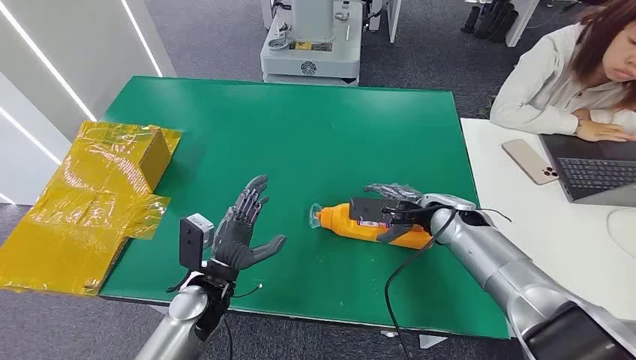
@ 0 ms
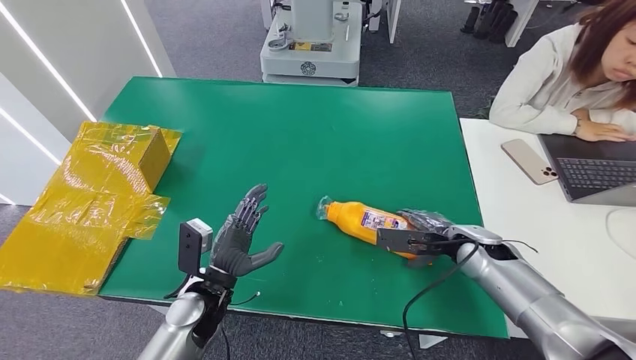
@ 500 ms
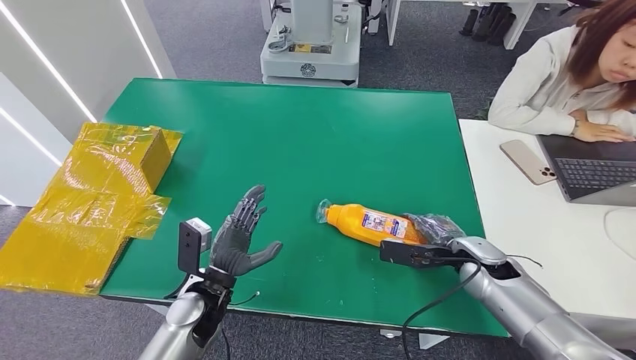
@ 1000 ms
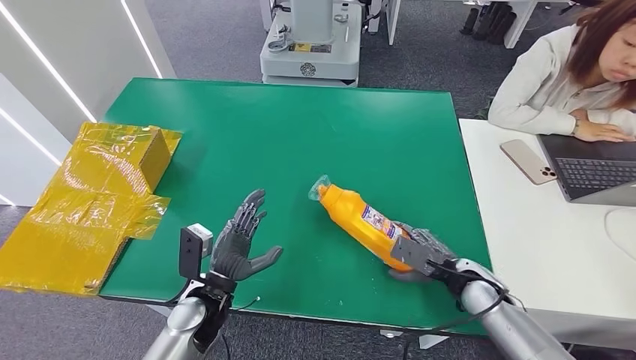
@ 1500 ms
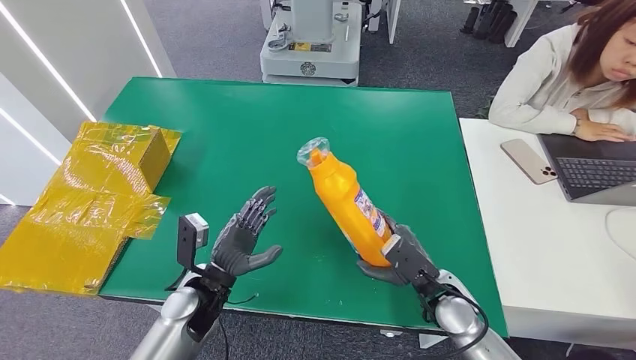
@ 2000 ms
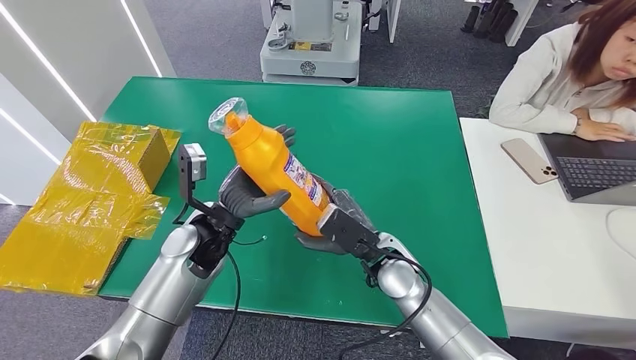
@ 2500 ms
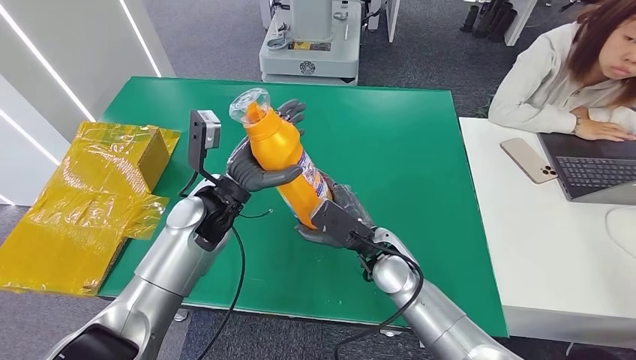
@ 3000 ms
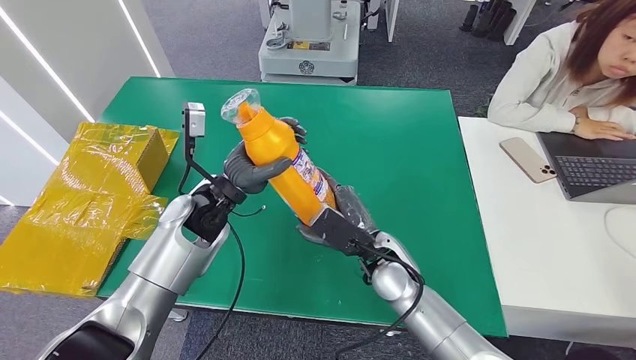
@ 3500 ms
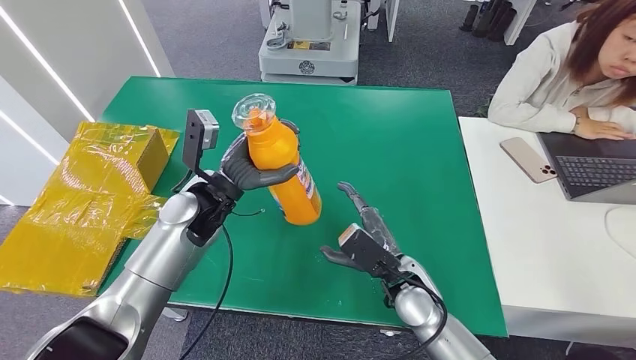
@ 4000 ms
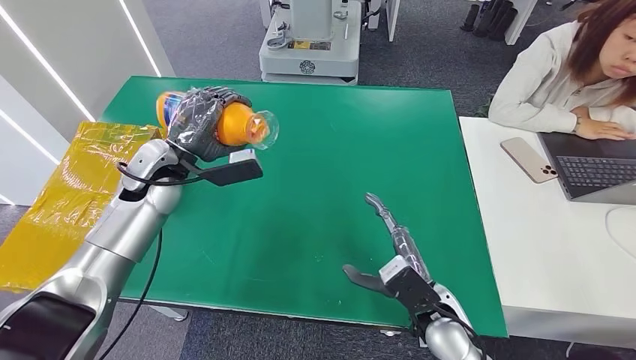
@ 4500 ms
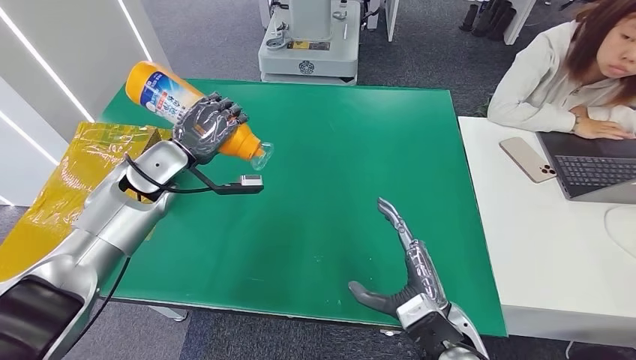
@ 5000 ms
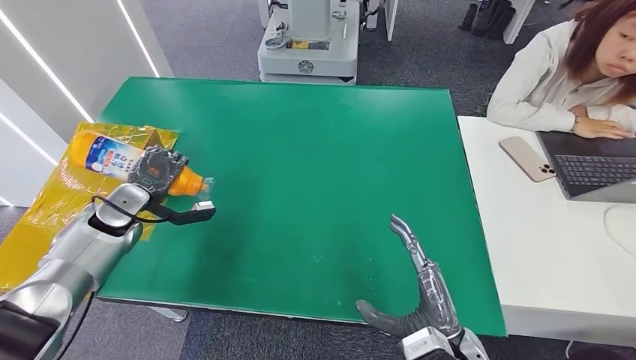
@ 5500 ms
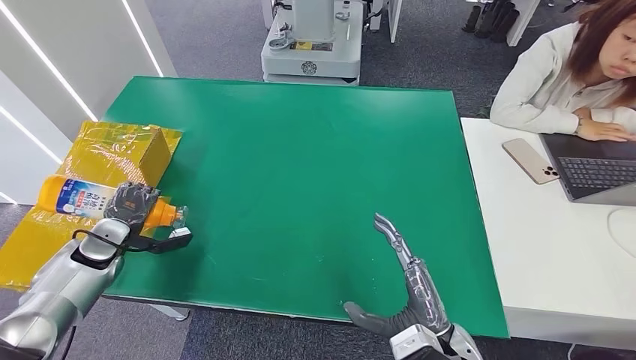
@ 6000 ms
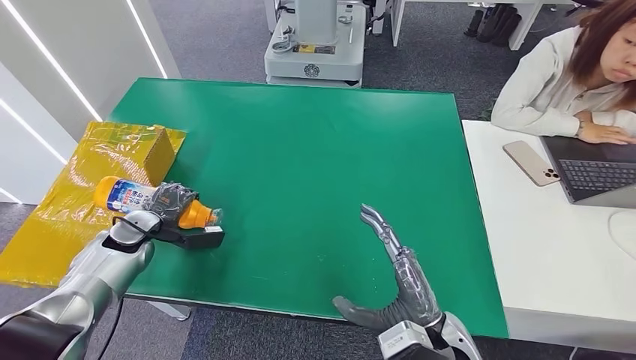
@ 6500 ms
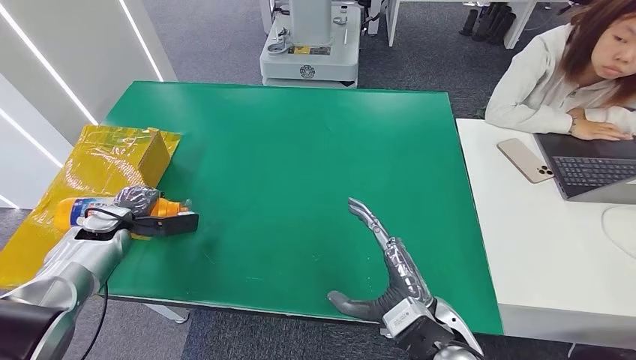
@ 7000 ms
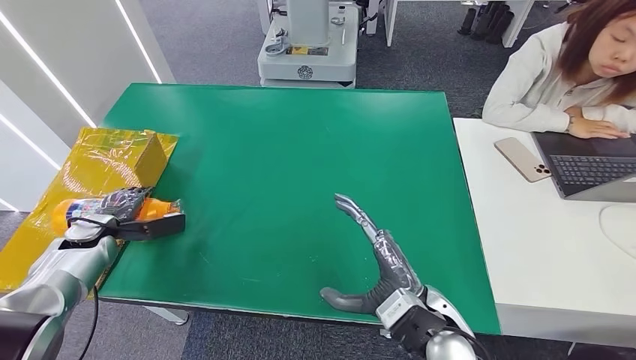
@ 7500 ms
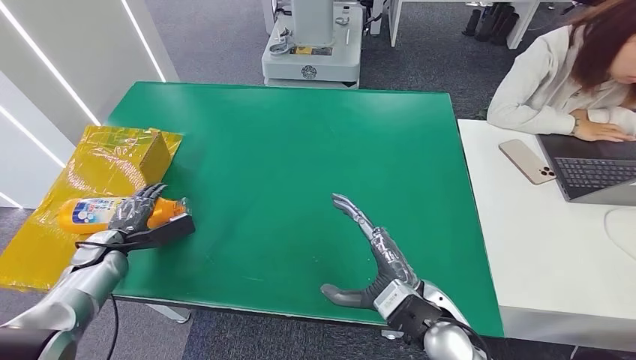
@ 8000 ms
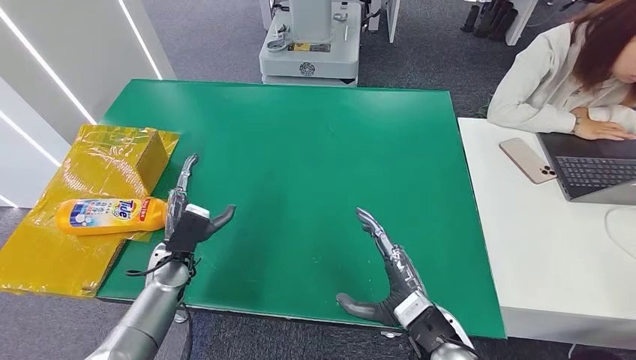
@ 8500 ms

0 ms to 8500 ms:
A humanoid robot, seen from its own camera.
Step, 0 ms to 3000 ms: Pick up the bottle from the table.
Step, 4000 ms to 8500 ms: Turn the bottle to the front side.

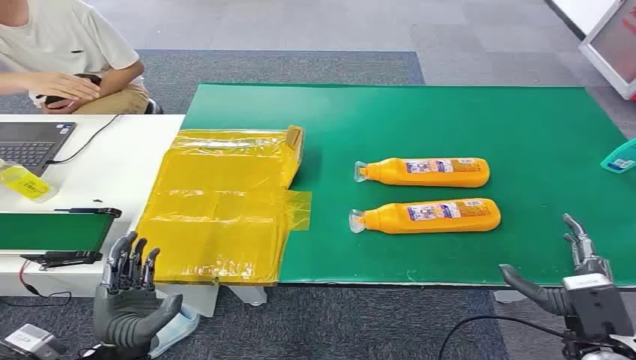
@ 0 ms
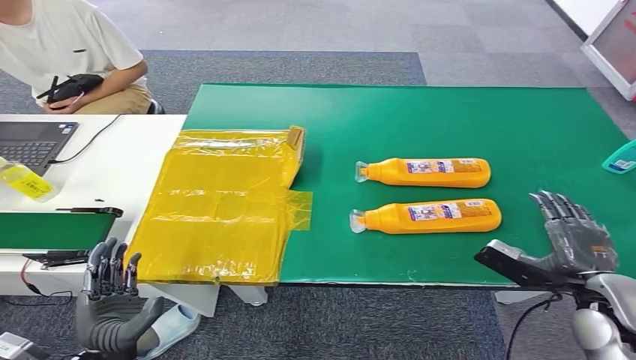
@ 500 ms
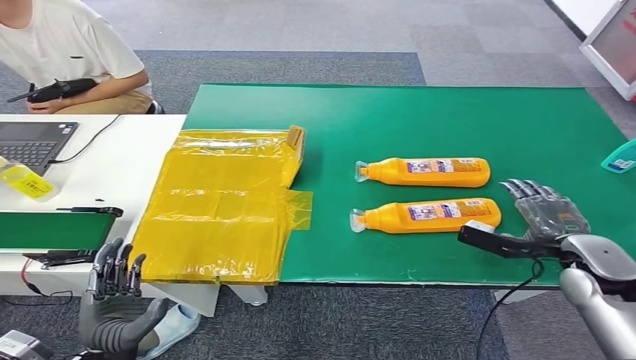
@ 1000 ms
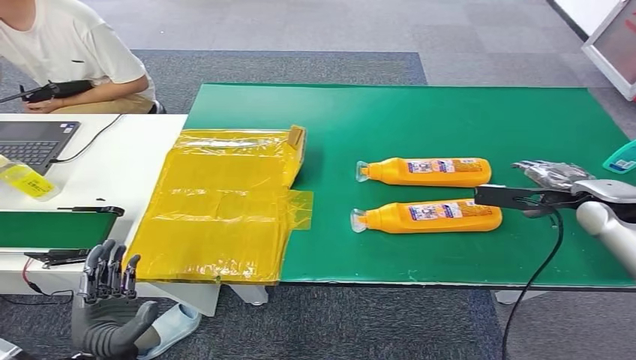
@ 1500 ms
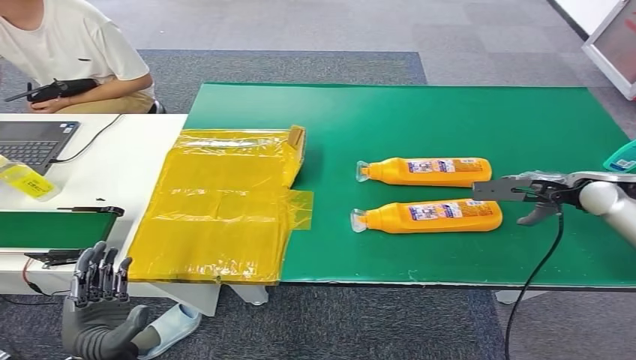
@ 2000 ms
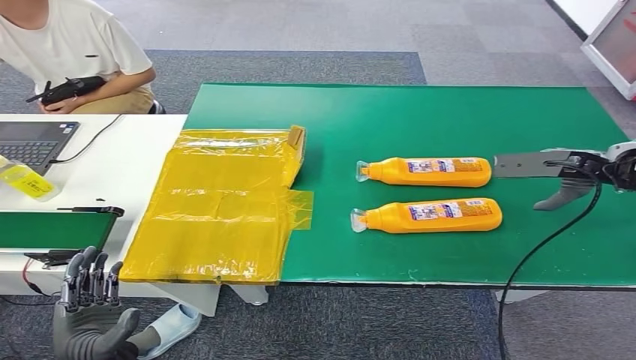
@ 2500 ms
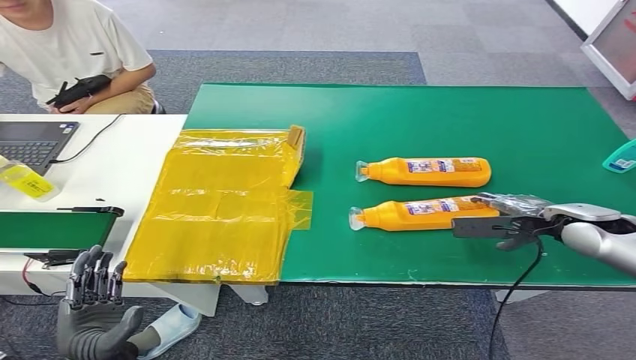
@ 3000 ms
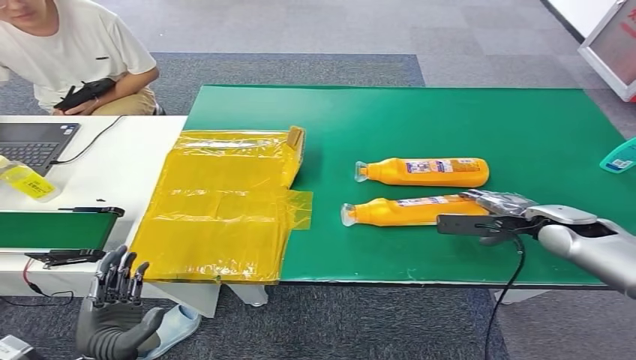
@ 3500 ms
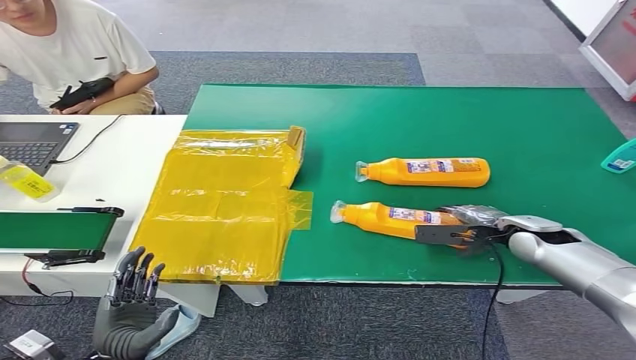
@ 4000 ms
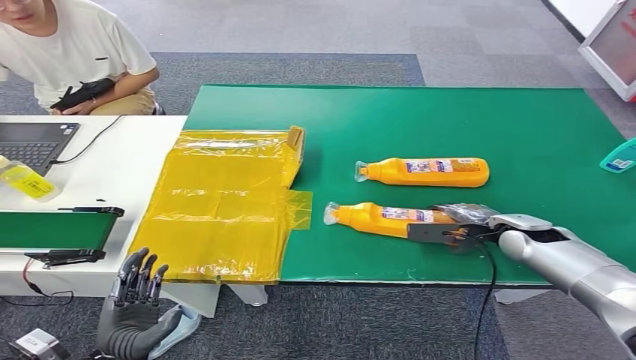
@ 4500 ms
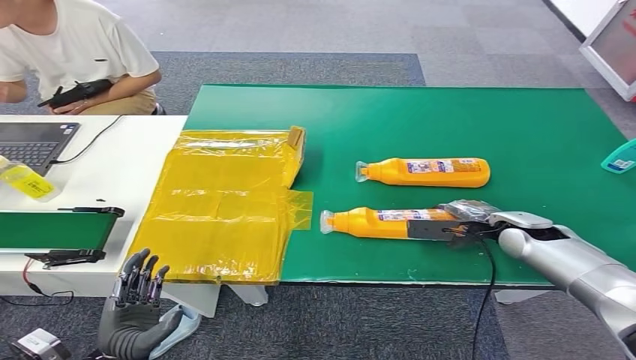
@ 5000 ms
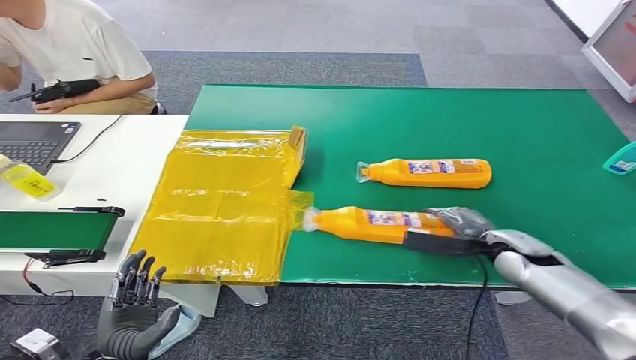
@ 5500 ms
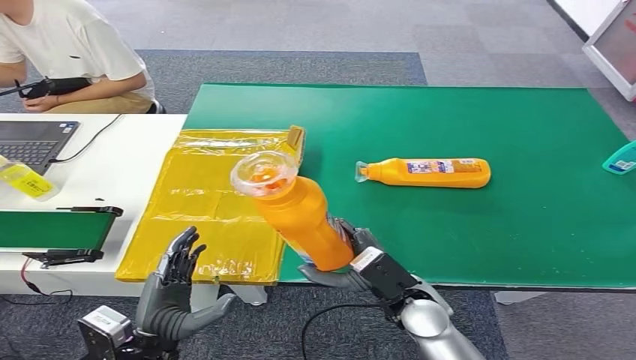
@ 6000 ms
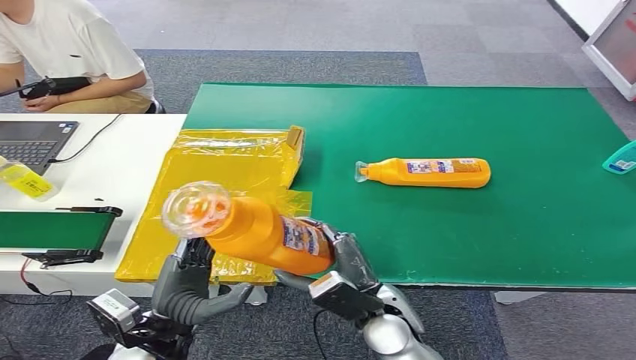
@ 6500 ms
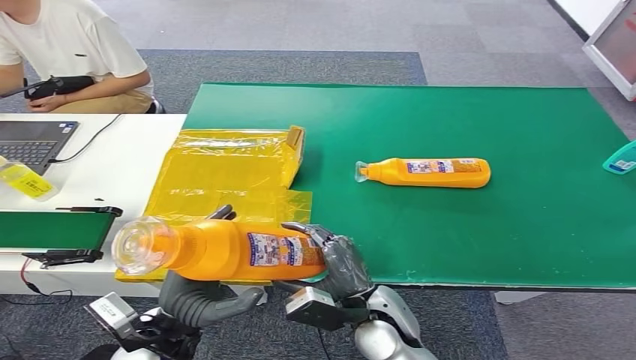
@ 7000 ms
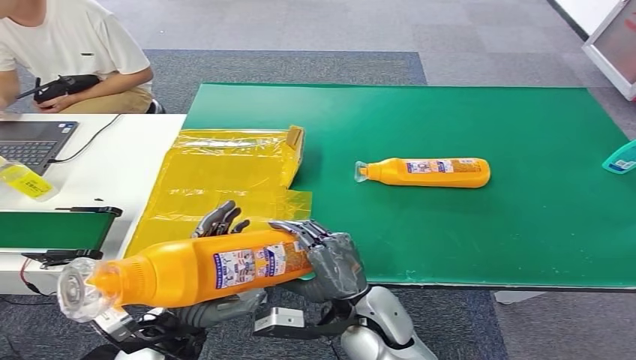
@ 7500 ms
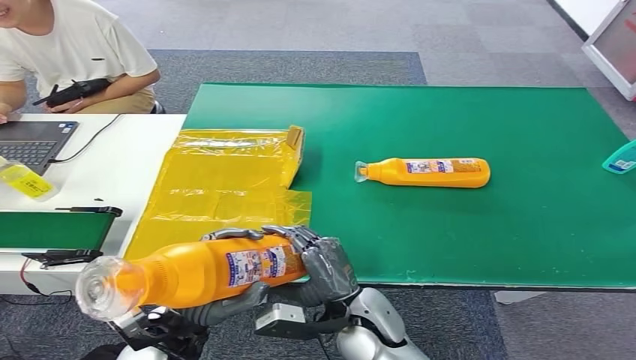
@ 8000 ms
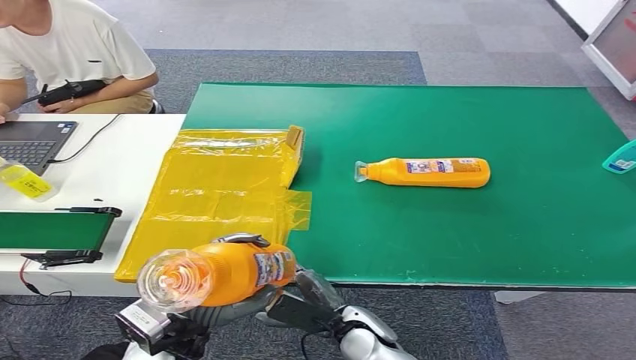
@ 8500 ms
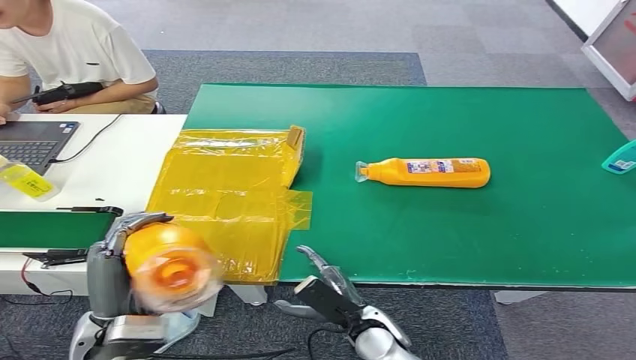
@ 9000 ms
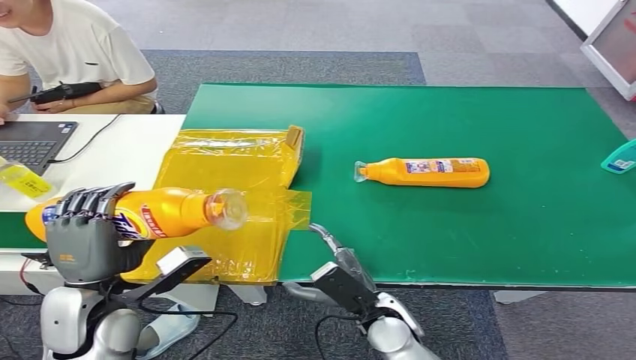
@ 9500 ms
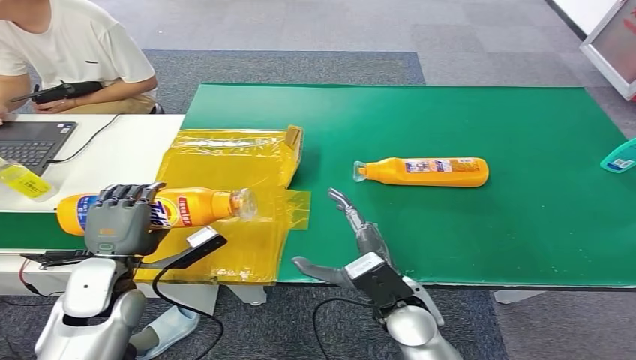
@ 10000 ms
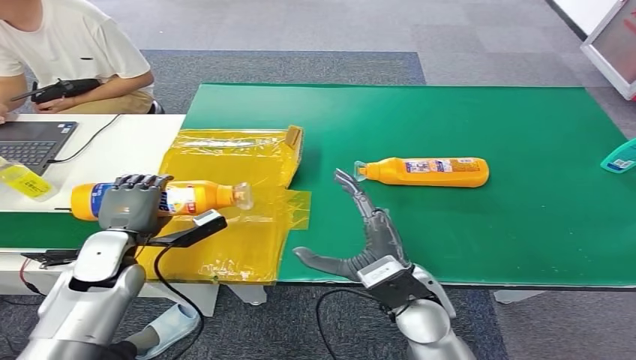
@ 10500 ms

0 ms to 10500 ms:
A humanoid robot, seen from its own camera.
Step, 0 ms to 7000 ms: Pick up the bottle from the table.
2000 ms to 4000 ms: The right hand goes about 15 cm downward and to the left.
6500 ms to 8500 ms: The right hand heads downward, covering about 10 cm.
8500 ms to 10500 ms: The right hand heads upward and to the right, covering roughly 15 cm. Meanwhile the left hand is displaced forward and to the left by roughly 20 cm.

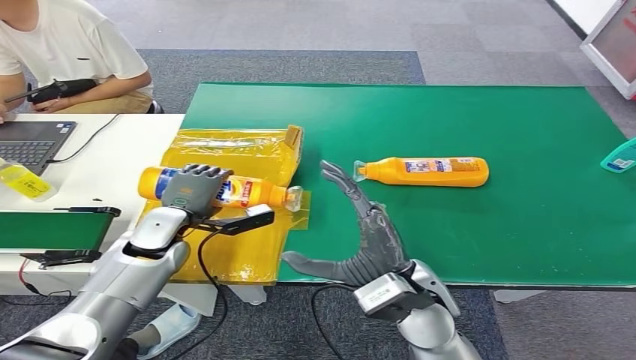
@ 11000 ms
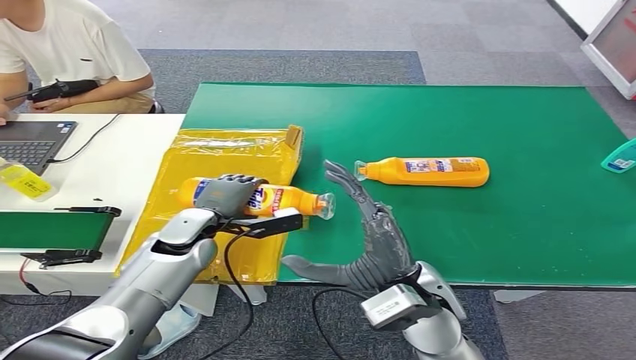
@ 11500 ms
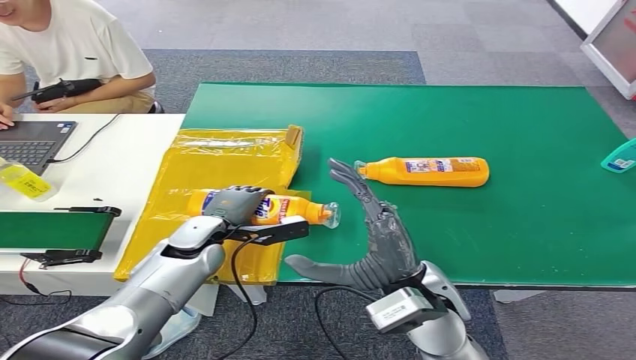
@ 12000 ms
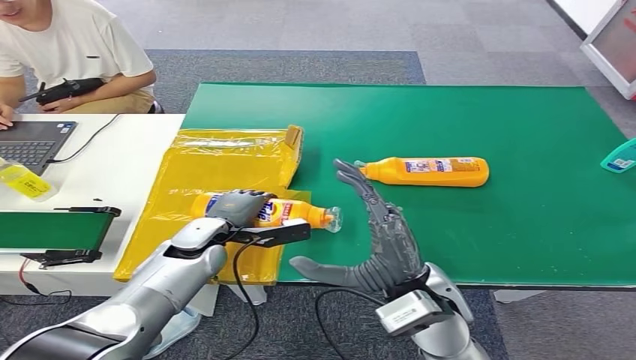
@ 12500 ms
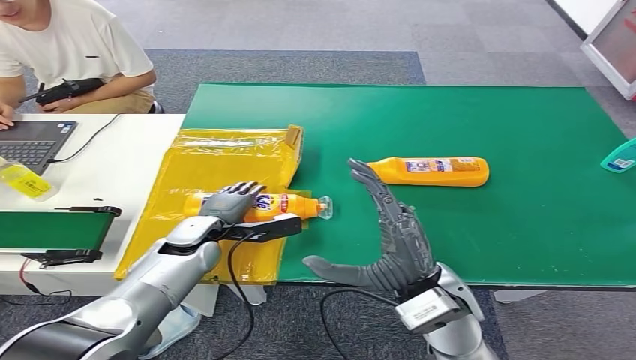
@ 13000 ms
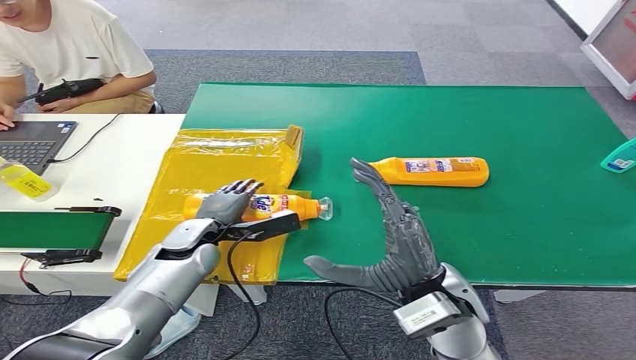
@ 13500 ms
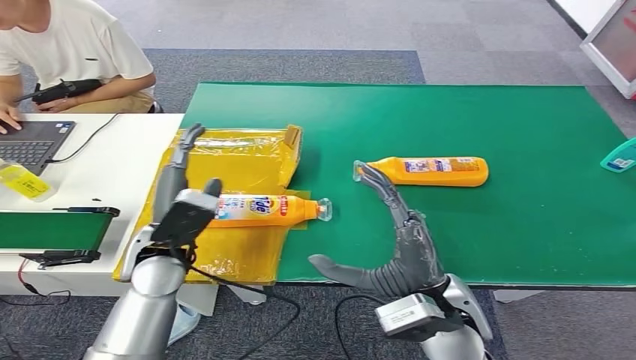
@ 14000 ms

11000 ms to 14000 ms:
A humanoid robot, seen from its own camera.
Step, 11000 ms to 14000 ms: Turn the bottle to the front side.
11000 ms to 12500 ms: The left hand heads to the right, covering roughly 5 cm.
12500 ms to 14000 ms: The left hand heads upward and backward, covering roughly 10 cm.
